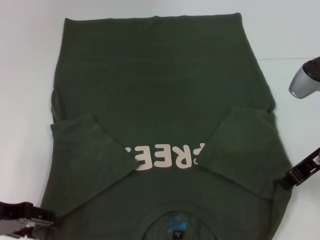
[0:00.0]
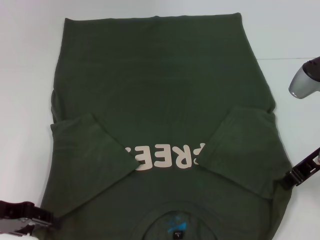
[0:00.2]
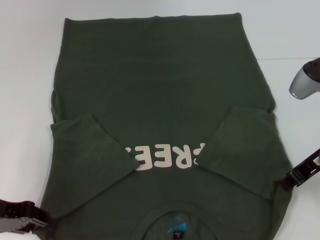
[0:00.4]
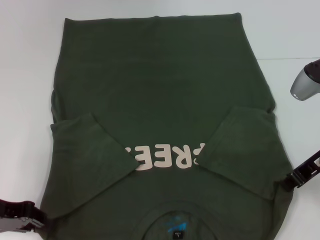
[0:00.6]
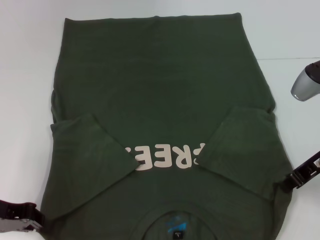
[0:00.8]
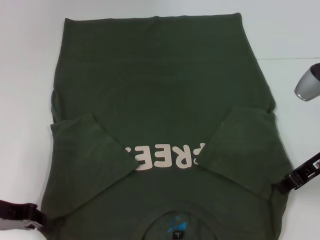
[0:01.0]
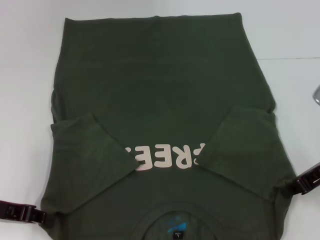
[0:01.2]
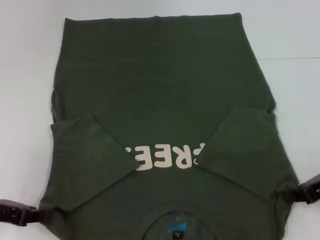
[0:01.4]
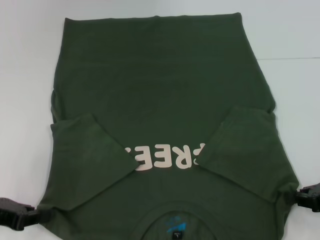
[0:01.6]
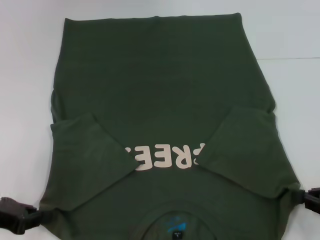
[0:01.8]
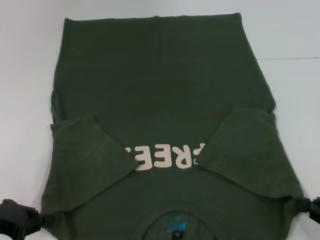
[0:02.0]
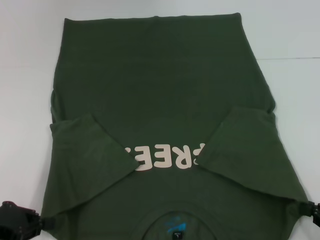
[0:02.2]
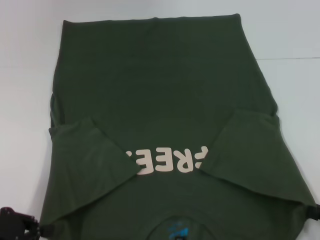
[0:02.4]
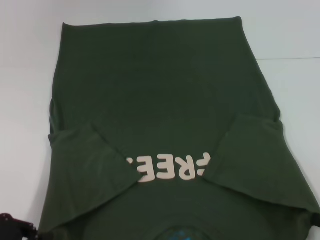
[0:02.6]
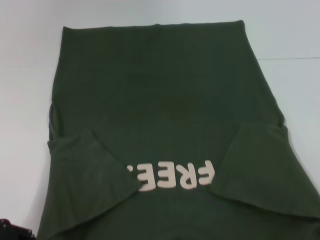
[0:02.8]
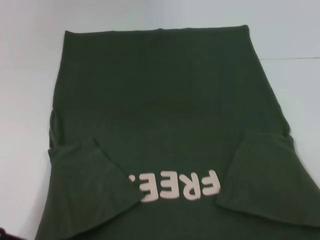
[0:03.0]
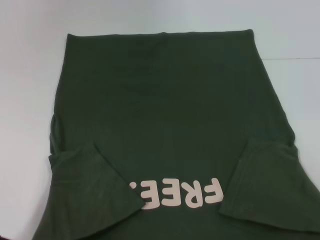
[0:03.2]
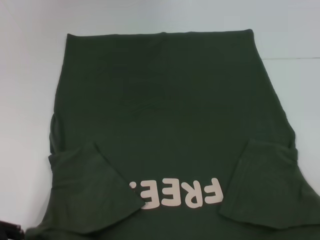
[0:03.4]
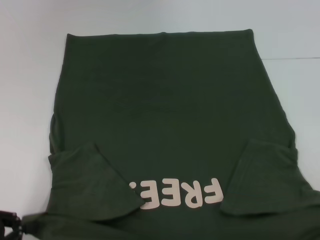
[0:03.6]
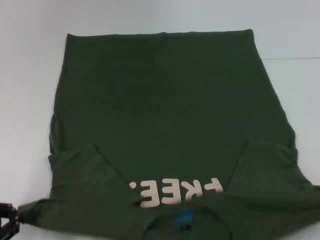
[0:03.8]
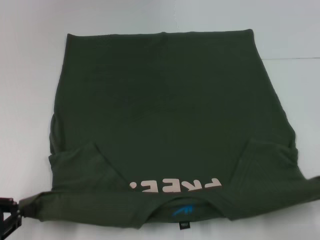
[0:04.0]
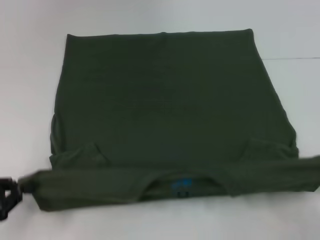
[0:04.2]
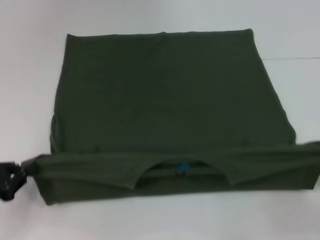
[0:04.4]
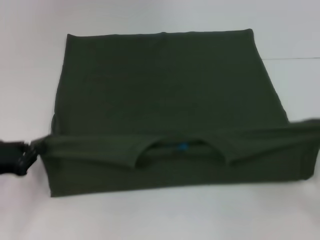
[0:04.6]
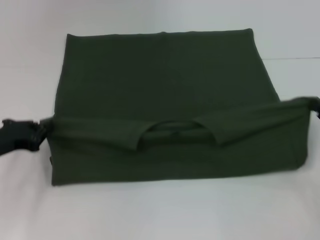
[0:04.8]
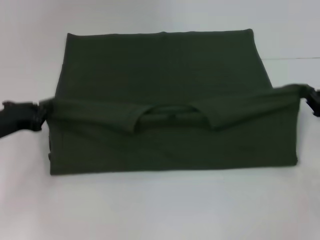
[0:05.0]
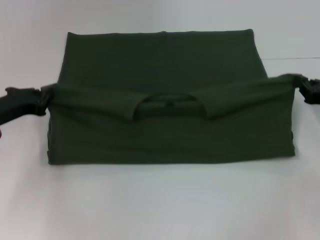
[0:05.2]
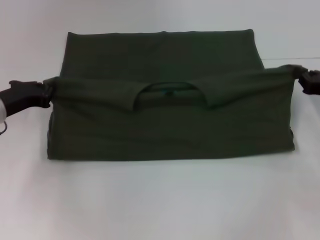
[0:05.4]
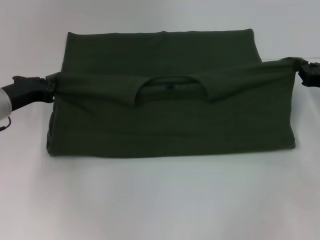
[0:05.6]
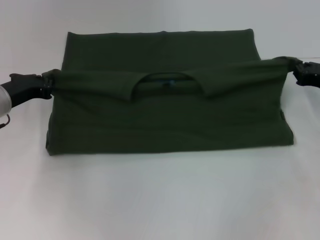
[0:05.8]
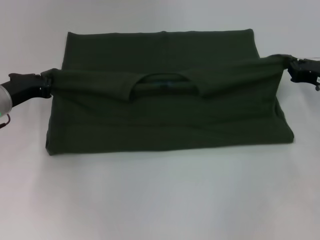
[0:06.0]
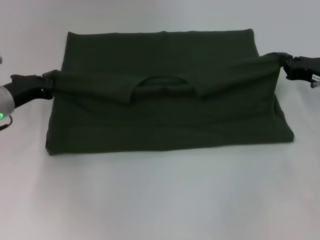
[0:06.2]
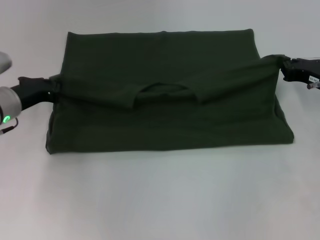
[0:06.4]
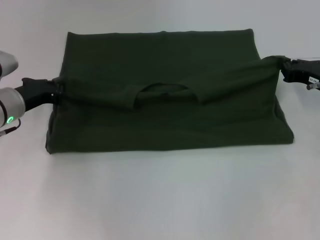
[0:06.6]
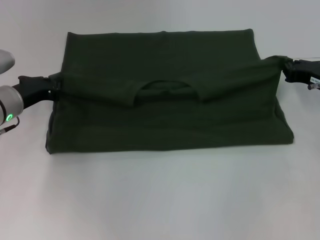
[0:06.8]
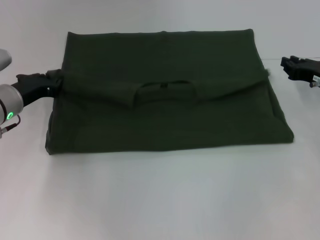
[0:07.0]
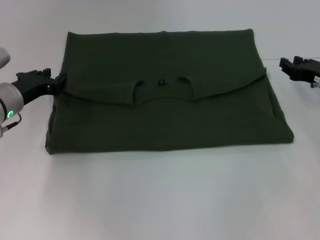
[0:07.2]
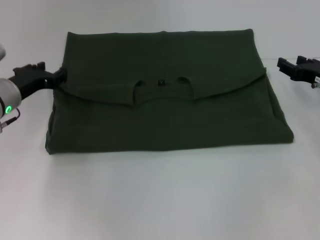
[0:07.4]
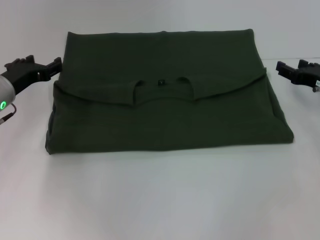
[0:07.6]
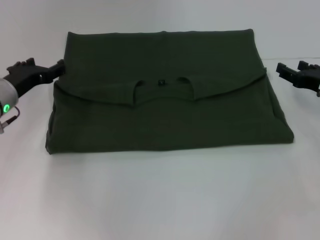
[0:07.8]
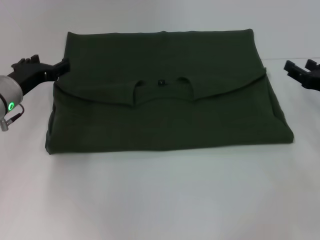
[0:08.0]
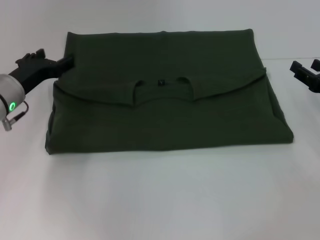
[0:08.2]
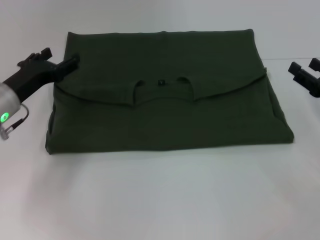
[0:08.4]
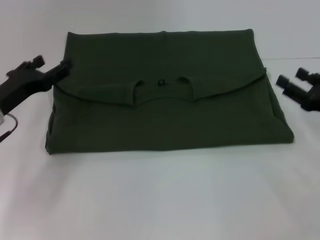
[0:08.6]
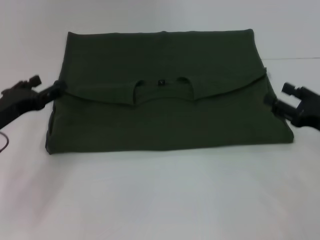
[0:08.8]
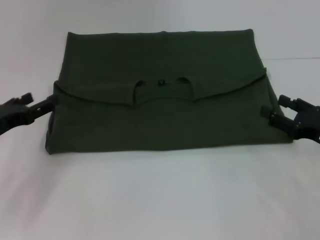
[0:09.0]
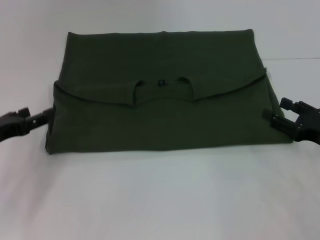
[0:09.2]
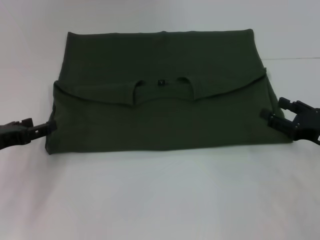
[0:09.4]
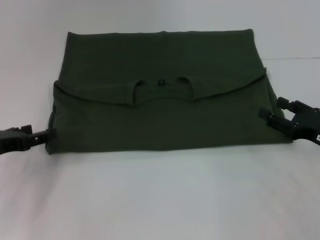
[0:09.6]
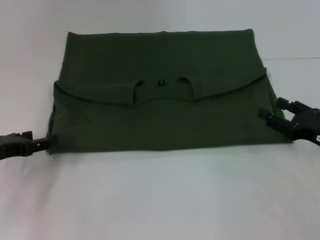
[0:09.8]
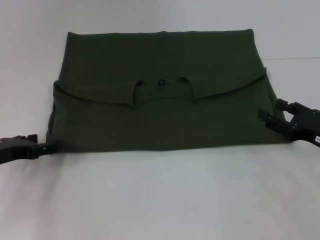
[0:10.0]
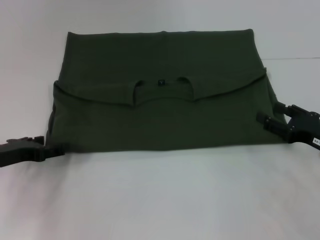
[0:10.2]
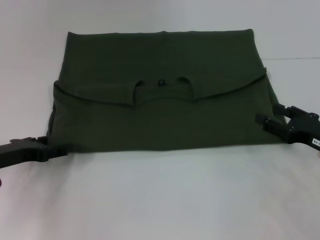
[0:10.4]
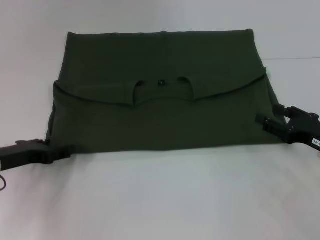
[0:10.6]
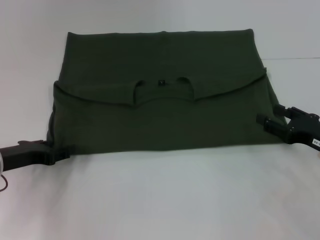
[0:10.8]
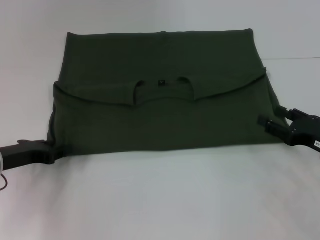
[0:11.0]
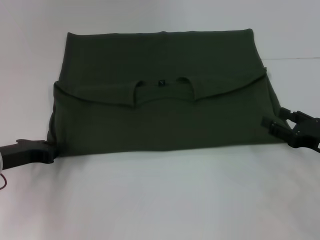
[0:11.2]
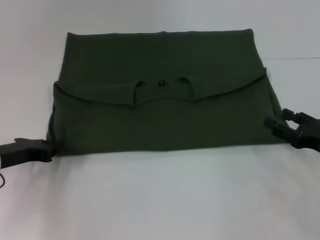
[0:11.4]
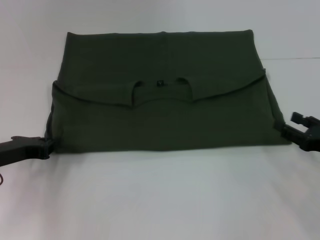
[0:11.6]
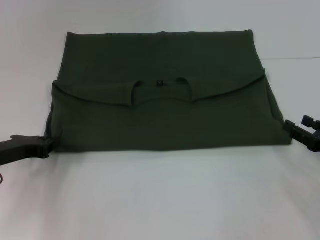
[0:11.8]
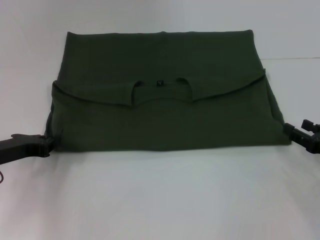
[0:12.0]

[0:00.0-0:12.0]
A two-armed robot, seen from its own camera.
Step, 0:01.0 to 0:07.2: Fold the clothes with your left hand.
Step, 0:01.0 to 0:07.2: Fold the clothes with your right hand.
0:00.0 to 0:01.6: The right gripper is displaced to the right, backward and downward by roughly 10 cm. The left gripper closes its fingers.
0:01.6 to 0:03.0: The left gripper travels backward by approximately 5 cm; the right gripper goes about 20 cm backward.
0:03.0 to 0:04.4: The left gripper goes approximately 5 cm forward, while the right gripper heads forward, covering approximately 10 cm.
0:04.4 to 0:06.0: The right gripper shifts about 20 cm forward, while the left gripper is displaced forward and to the right by approximately 15 cm.
0:06.0 to 0:07.6: The left gripper opens; the right gripper opens.
0:07.6 to 0:09.0: Both grippers travel together backward, roughly 10 cm.
0:10.4 to 0:12.0: The left gripper closes its fingers.

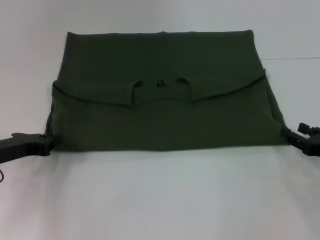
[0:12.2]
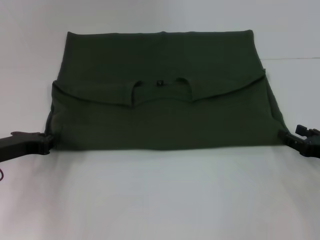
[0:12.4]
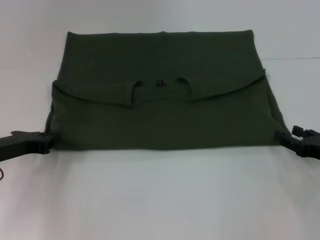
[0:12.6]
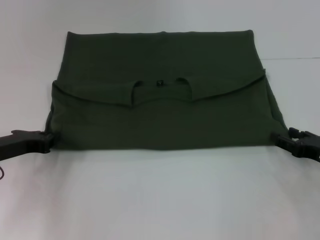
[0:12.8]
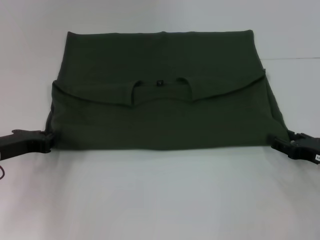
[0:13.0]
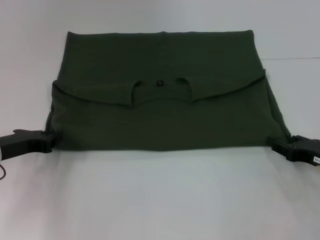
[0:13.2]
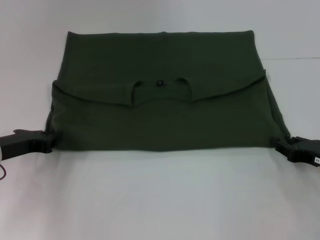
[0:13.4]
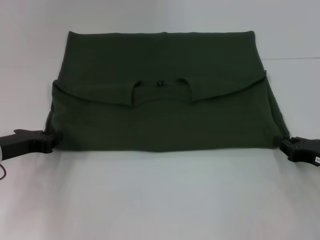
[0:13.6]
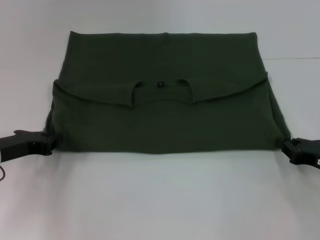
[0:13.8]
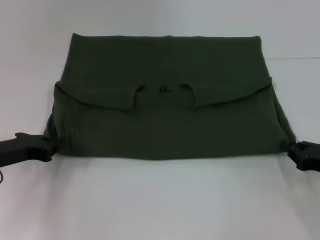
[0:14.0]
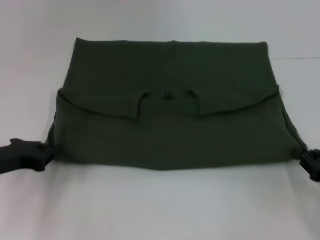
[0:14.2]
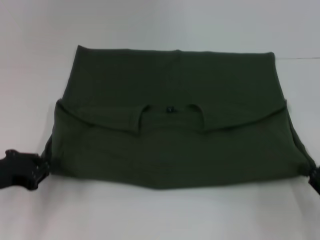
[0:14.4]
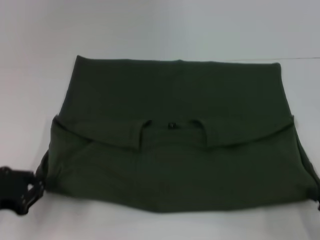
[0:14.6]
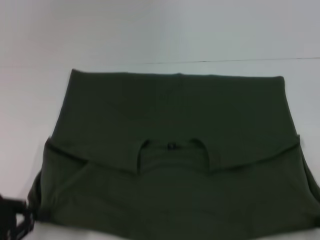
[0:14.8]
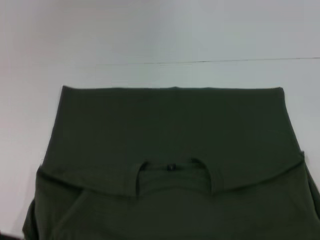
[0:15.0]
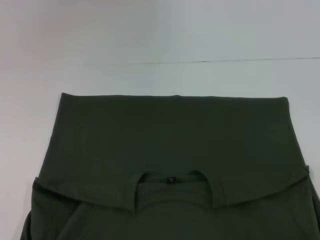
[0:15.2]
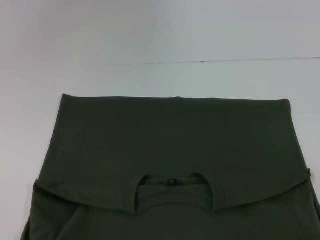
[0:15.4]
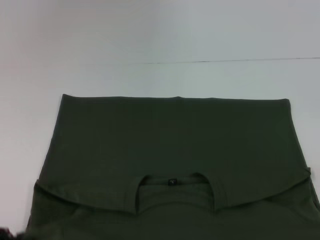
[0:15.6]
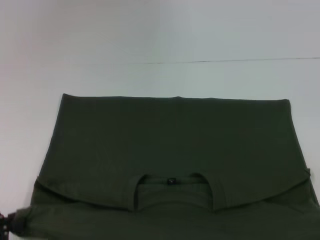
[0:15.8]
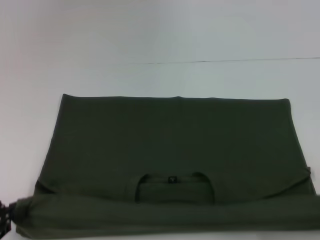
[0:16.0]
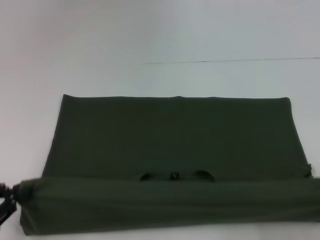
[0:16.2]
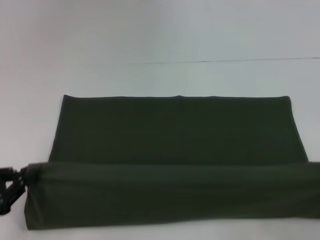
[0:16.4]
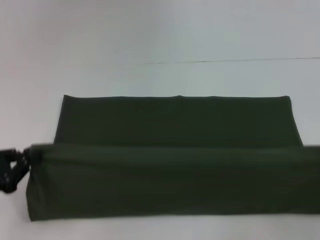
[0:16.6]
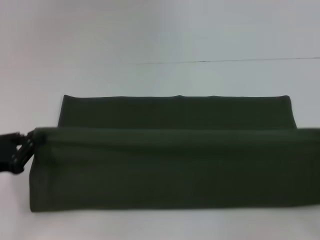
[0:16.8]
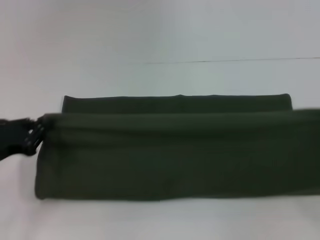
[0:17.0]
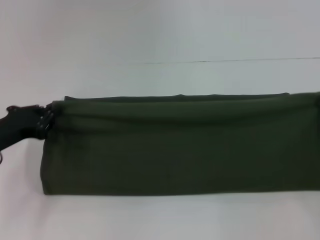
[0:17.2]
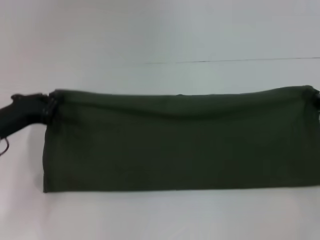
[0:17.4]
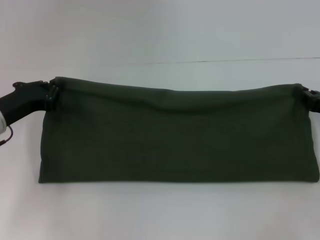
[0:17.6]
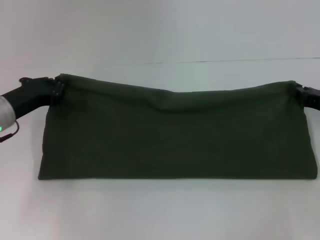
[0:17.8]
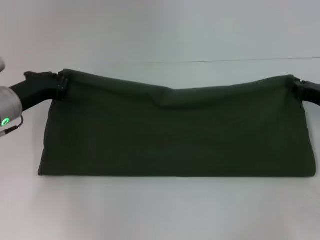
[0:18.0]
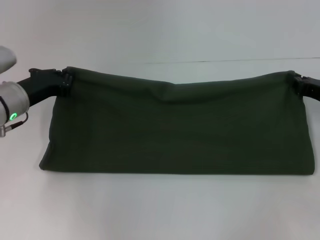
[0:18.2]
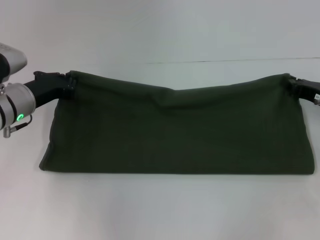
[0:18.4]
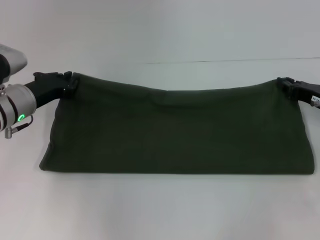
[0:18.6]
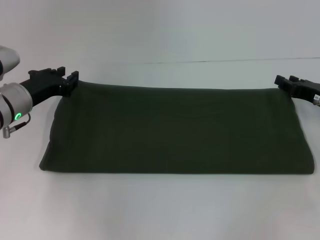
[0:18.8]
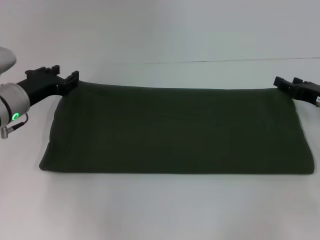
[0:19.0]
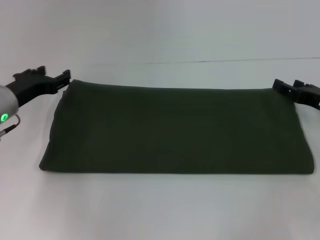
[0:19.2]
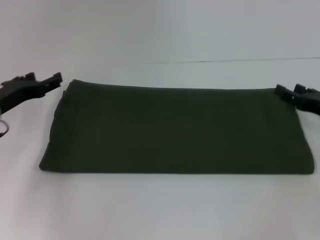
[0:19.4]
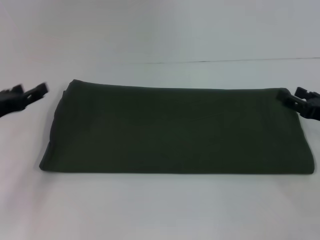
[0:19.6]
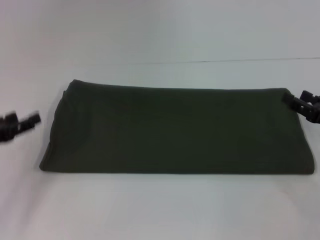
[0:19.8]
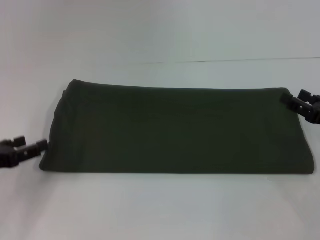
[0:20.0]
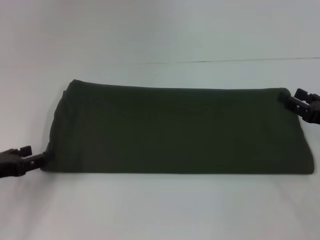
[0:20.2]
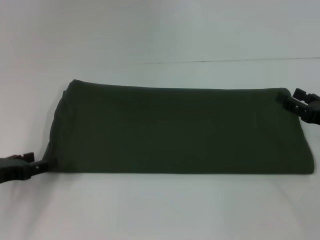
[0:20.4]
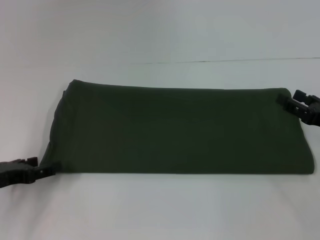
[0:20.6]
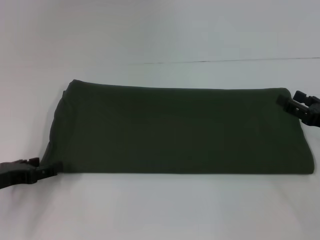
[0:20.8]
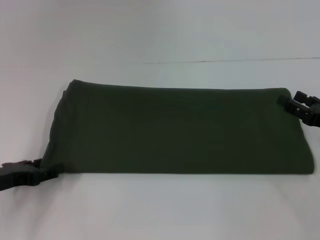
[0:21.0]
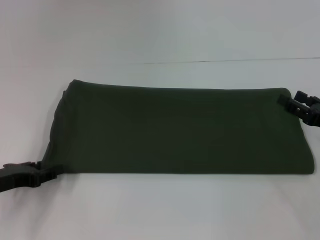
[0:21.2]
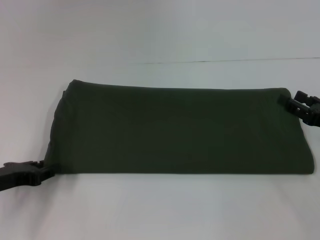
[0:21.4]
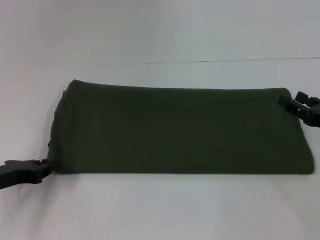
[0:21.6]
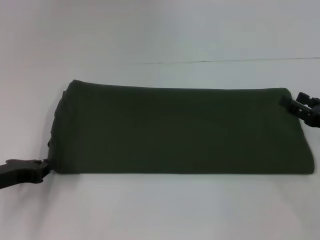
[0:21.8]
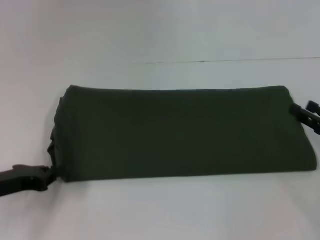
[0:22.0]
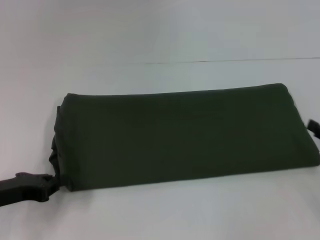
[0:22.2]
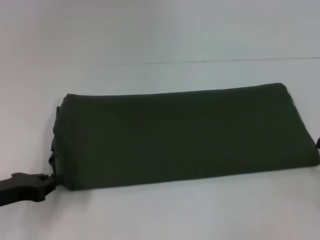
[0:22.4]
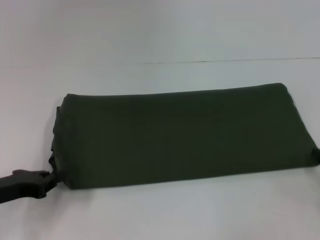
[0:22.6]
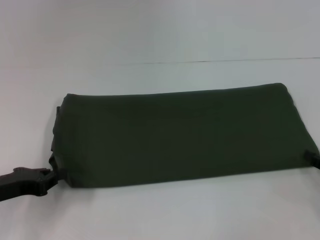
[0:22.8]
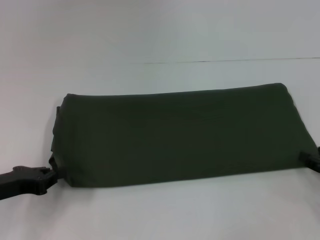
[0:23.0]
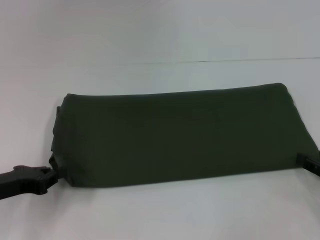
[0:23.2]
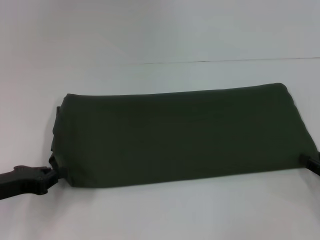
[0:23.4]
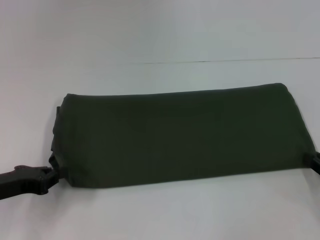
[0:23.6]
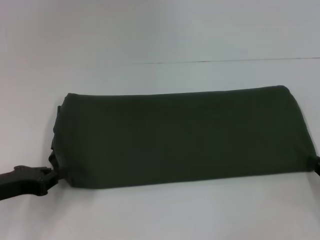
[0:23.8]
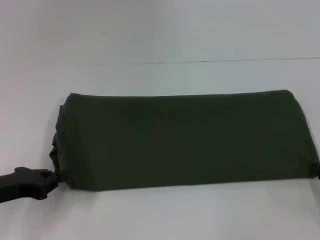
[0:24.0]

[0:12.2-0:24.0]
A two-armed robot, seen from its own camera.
Step, 0:12.2 to 0:15.4: Pull the clothes with your left hand.
Step, 0:12.2 to 0:15.4: Pull the clothes with your right hand.
Step, 0:15.6 to 0:18.8: Fold the clothes with your right hand.
0:12.2 to 0:13.6: The right gripper closes.
0:13.6 to 0:15.2: Both grippers travel together backward, about 20 cm.
0:15.2 to 0:16.6: The right gripper moves forward, approximately 15 cm. Meanwhile the left gripper travels forward by about 5 cm.
0:16.6 to 0:18.2: The right gripper goes roughly 20 cm forward; the left gripper travels forward and to the right by roughly 20 cm.
0:18.2 to 0:19.6: The right gripper opens its fingers. Meanwhile the left gripper moves to the left and backward, approximately 10 cm, and opens its fingers.
0:19.6 to 0:21.0: The left gripper shifts some 5 cm backward.
0:21.0 to 0:22.6: The left gripper closes. The right gripper moves backward, about 5 cm.
0:22.6 to 0:24.0: The right gripper closes.
